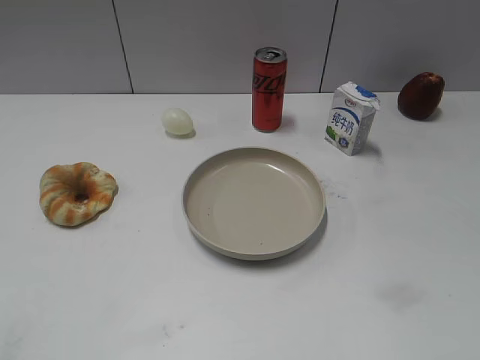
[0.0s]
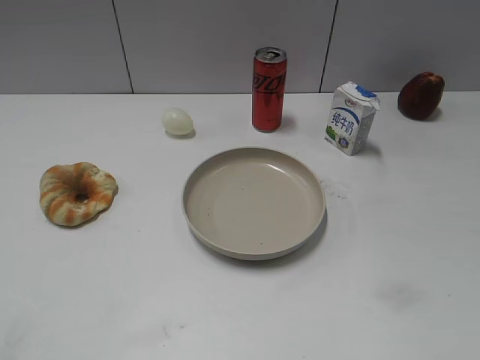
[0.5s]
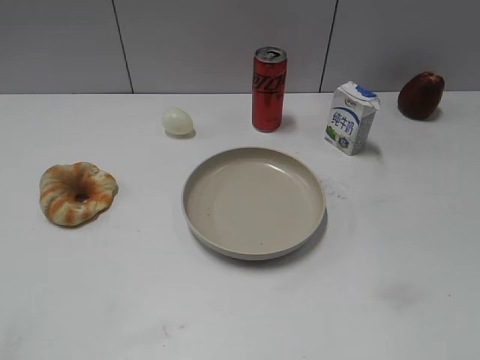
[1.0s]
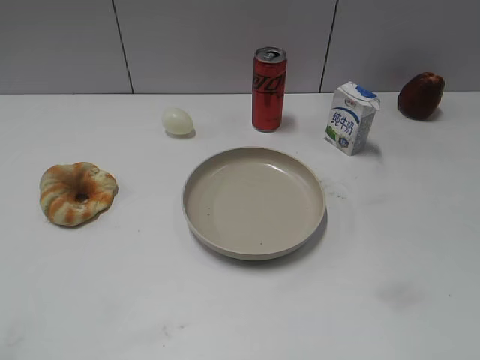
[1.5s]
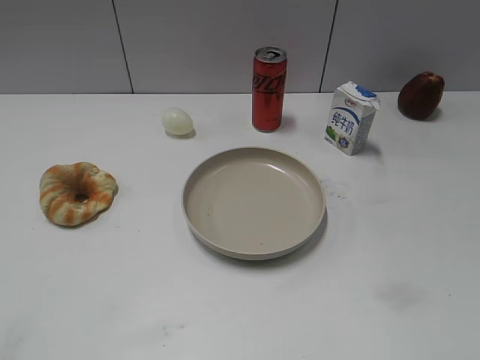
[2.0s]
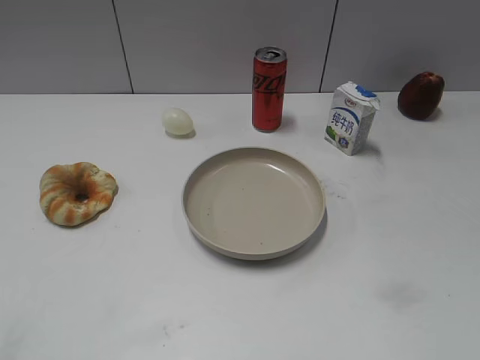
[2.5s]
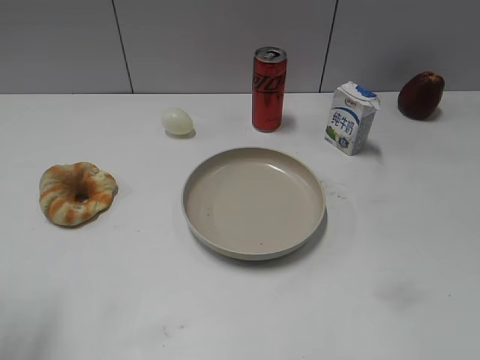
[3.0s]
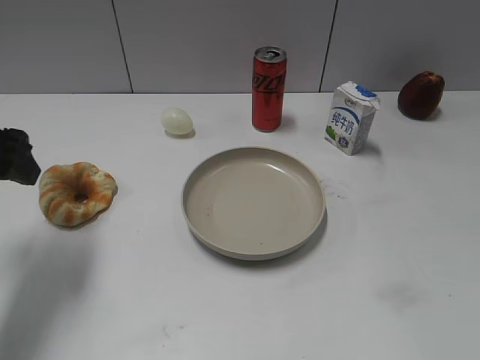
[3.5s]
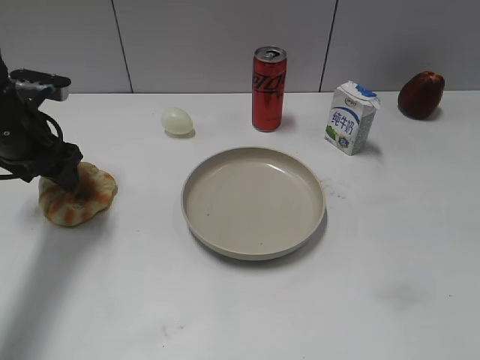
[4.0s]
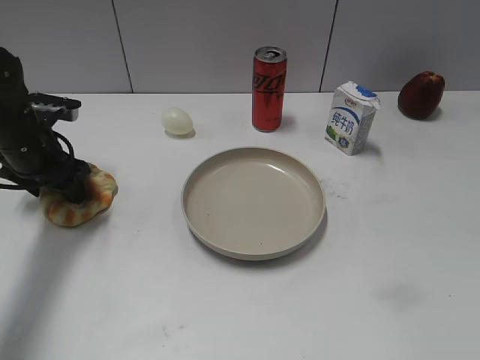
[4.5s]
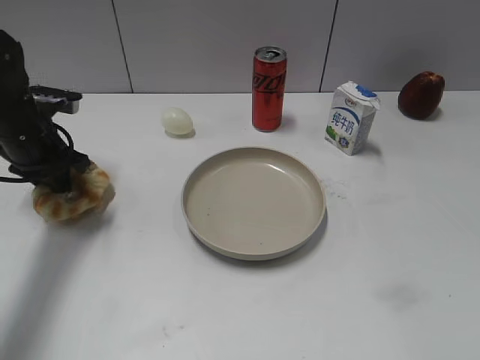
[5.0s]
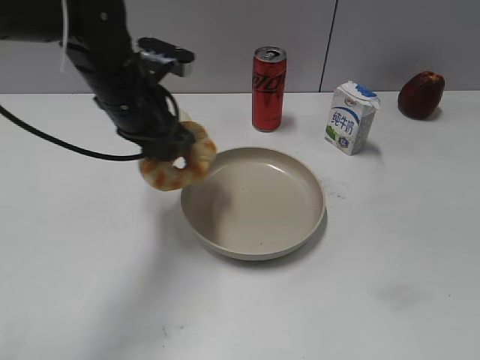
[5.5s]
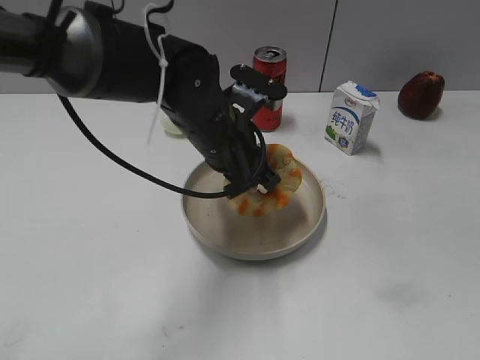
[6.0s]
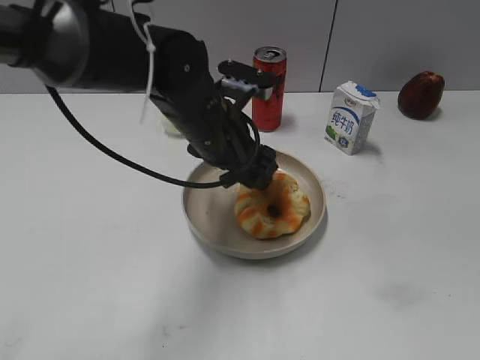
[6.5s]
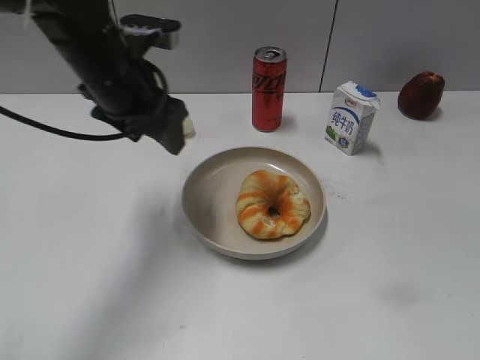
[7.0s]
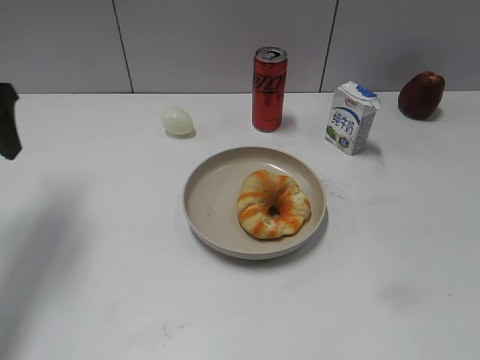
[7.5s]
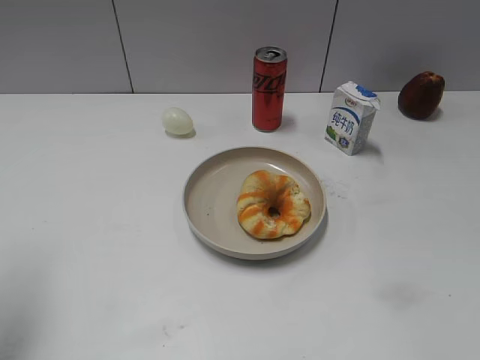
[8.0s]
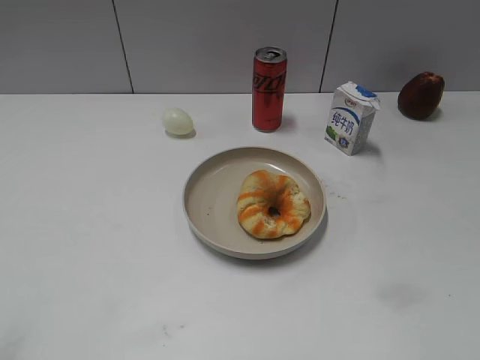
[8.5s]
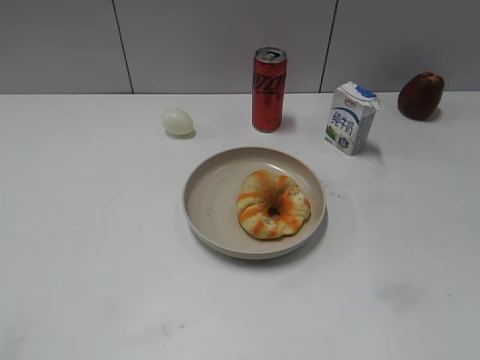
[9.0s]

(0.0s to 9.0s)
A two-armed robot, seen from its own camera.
Step, 2.5s - 4.5s: Grasp the round bread with left gripper.
Step, 5.0s - 6.5s: Place the round bread on the plate with left gripper.
2.0s - 4.5s: The left gripper shifts approximately 40 cm forward.
4.5s - 7.0s: The left gripper travels upward and to the right by some 15 cm, and closes, then opens again.
7.0s - 9.0s: The left gripper heads backward and to the left, covering roughly 35 cm.

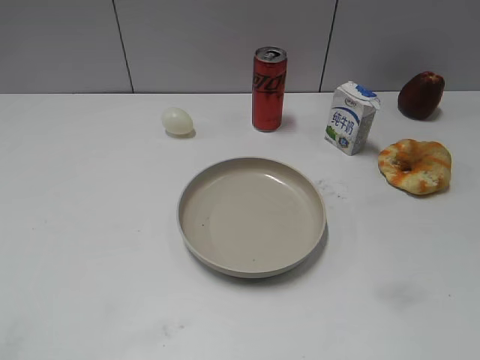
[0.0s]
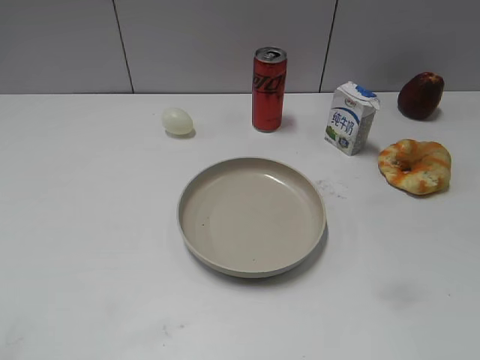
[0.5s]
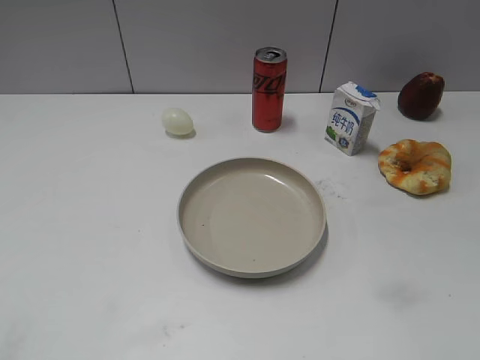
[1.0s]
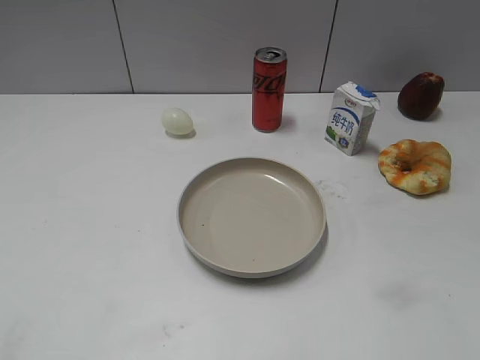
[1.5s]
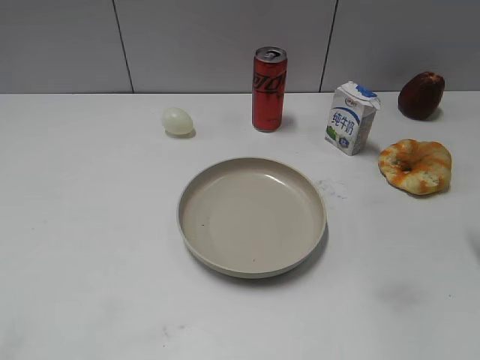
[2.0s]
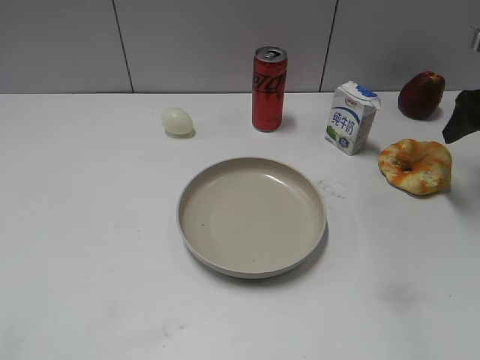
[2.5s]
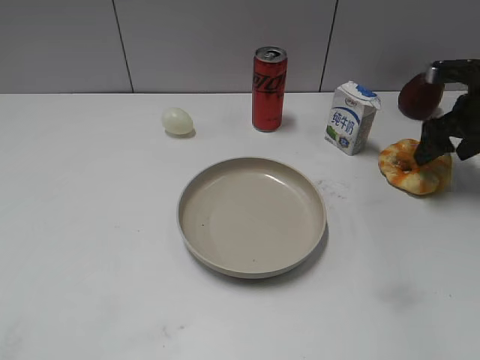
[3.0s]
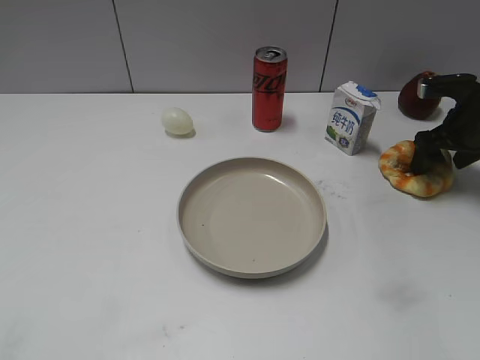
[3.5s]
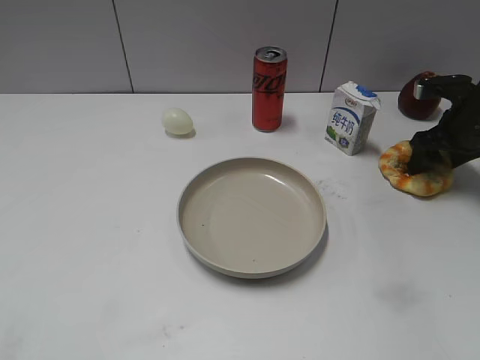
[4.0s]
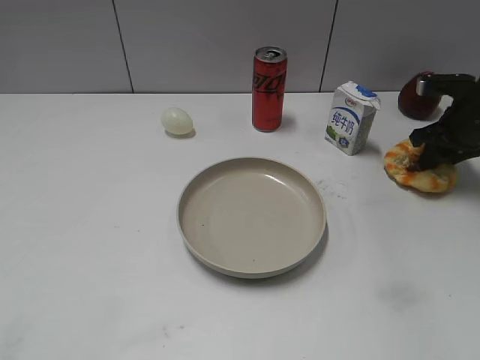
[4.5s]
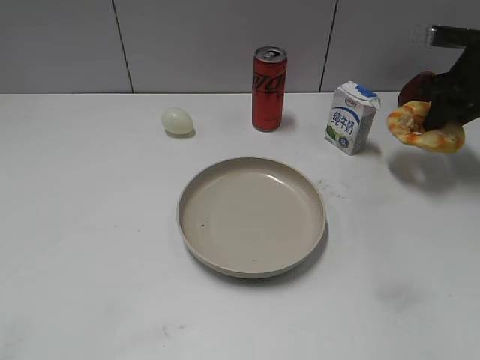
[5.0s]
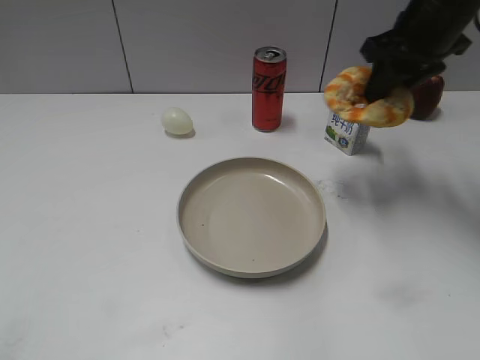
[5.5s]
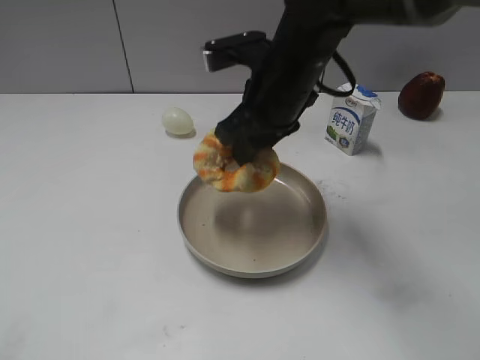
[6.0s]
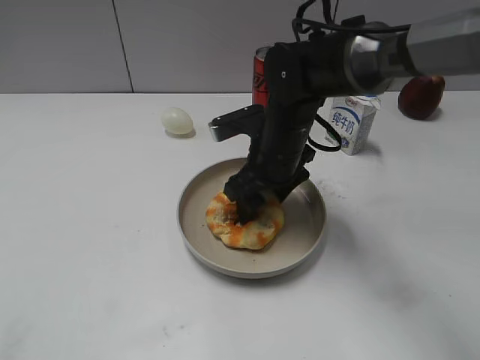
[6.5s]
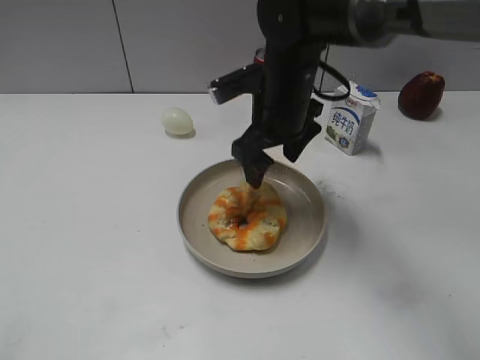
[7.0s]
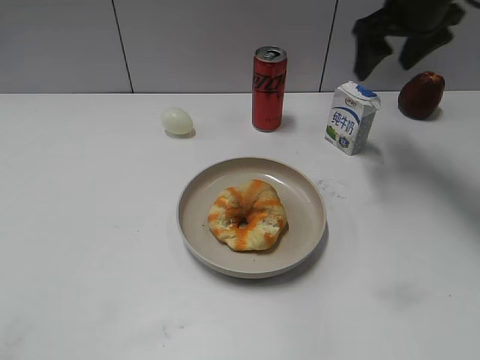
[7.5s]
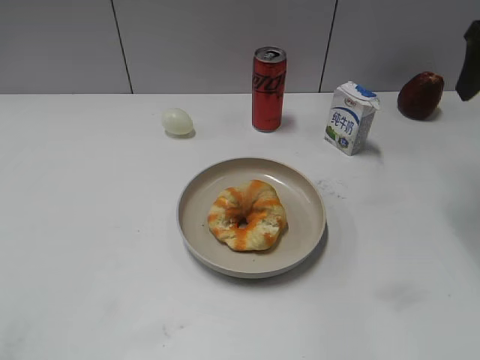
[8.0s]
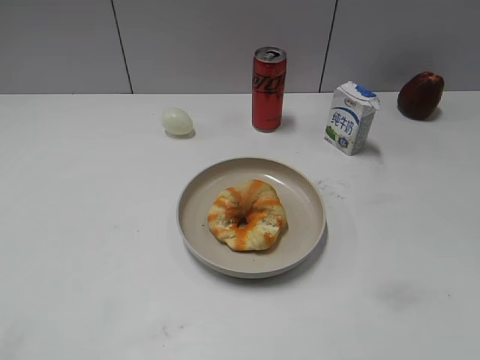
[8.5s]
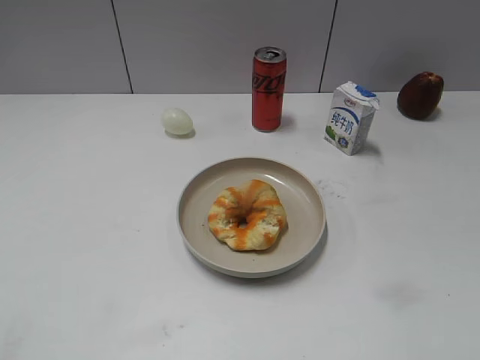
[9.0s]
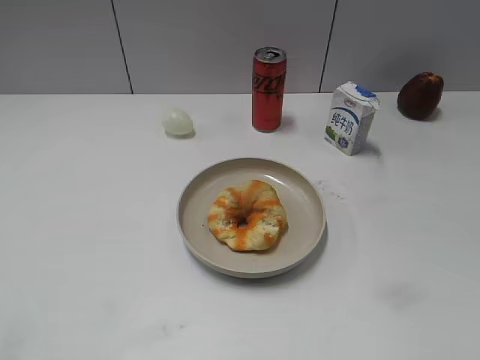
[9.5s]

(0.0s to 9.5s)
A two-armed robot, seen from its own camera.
Step, 1.0s - 4.5s: Grasp the round bread with right gripper.
Step, 5.0s - 7.0s: Place the round bread on the plate with right gripper.
2.0s - 4.0s: The right gripper moves forward and downward, about 20 cm.
4.0s - 5.5s: The right gripper travels upward and to the left by roughly 20 cm, and closes.
5.5s - 7.5s: The right gripper reaches some 15 cm to the left, then returns, and opens.
7.5s - 9.5s: The right gripper goes some 40 cm backward.
